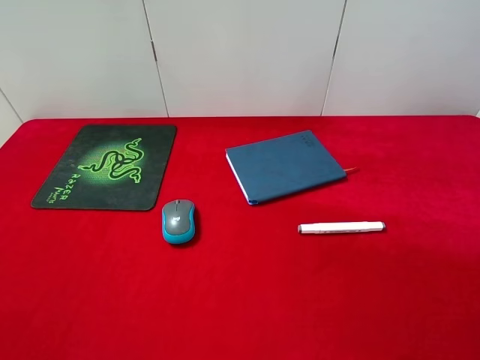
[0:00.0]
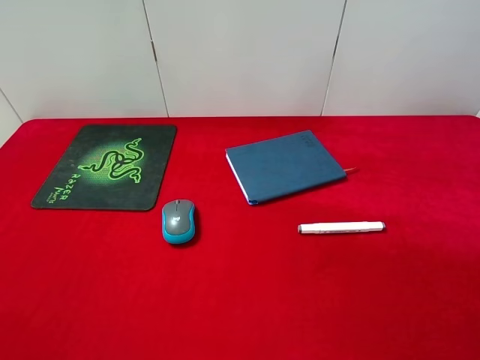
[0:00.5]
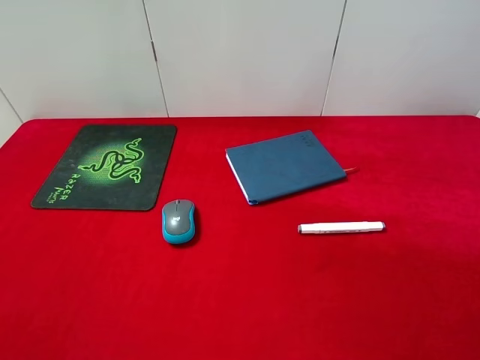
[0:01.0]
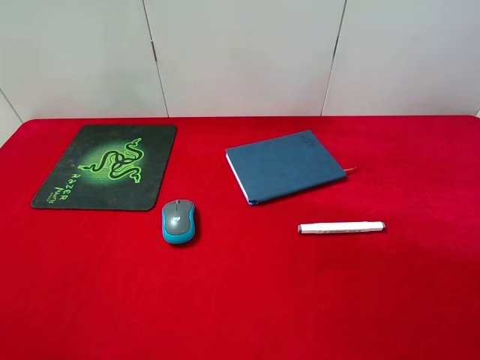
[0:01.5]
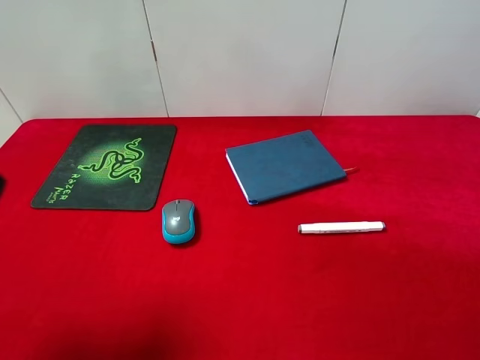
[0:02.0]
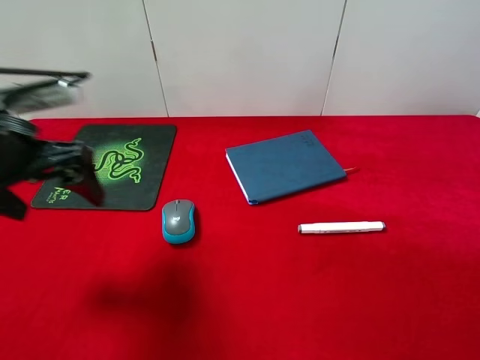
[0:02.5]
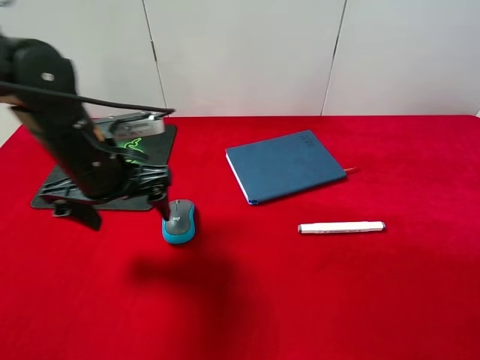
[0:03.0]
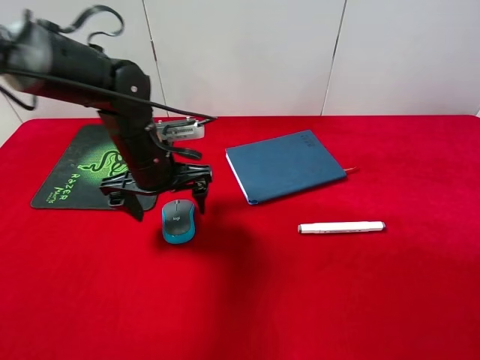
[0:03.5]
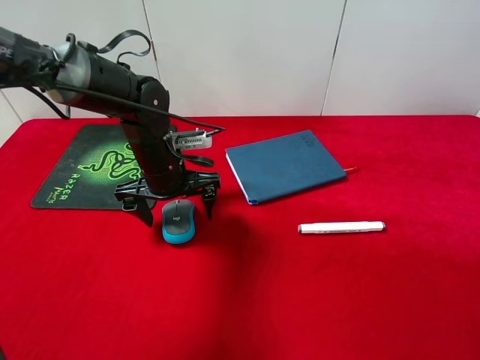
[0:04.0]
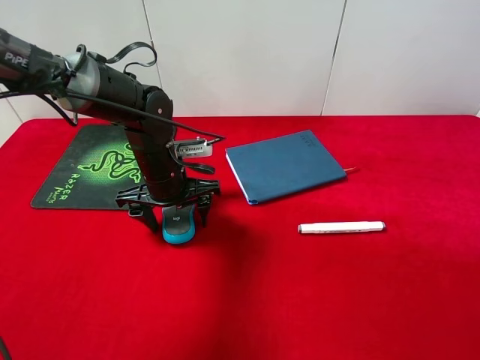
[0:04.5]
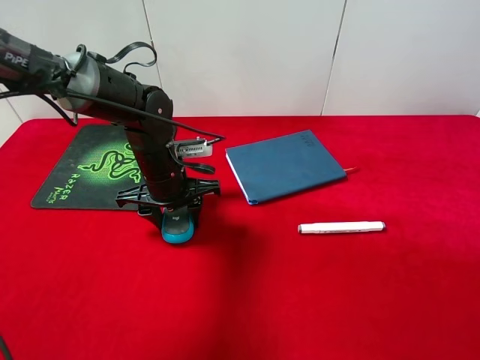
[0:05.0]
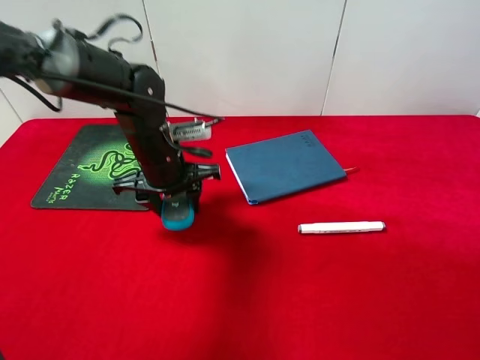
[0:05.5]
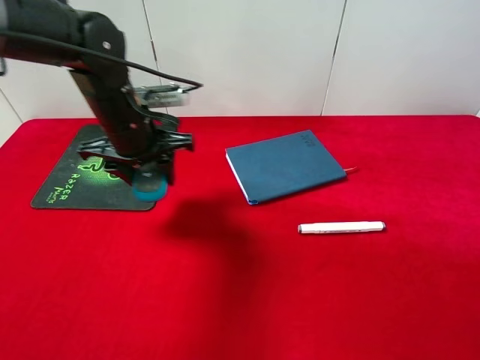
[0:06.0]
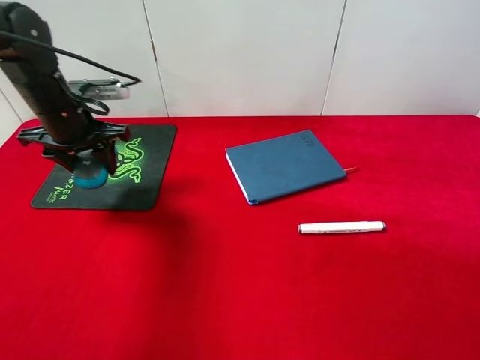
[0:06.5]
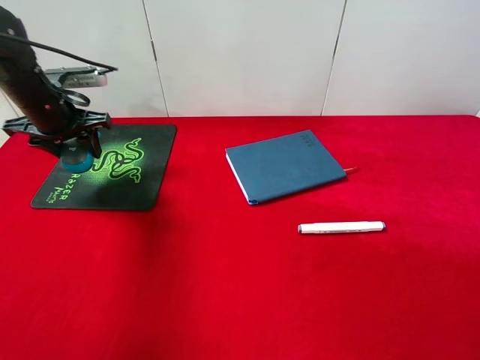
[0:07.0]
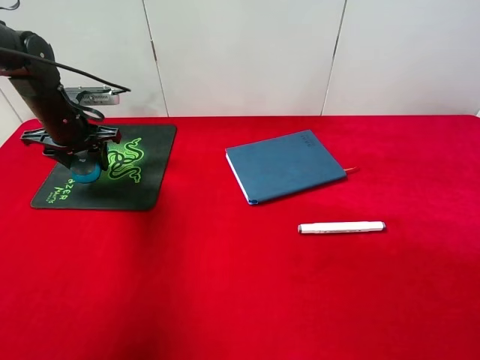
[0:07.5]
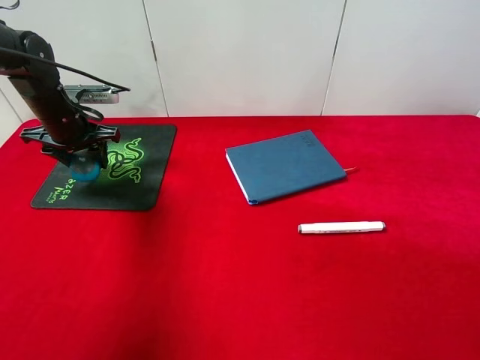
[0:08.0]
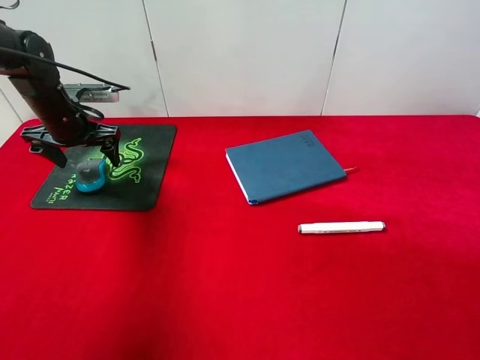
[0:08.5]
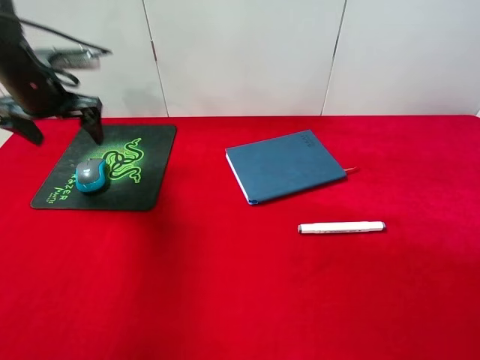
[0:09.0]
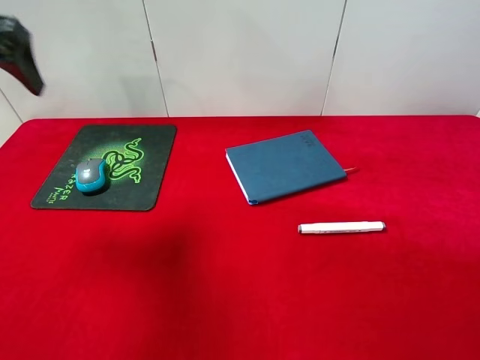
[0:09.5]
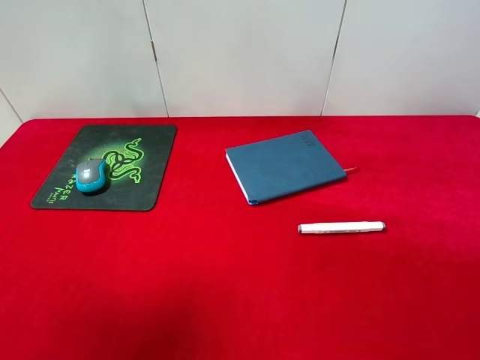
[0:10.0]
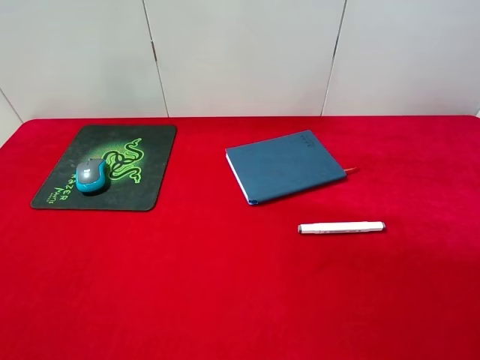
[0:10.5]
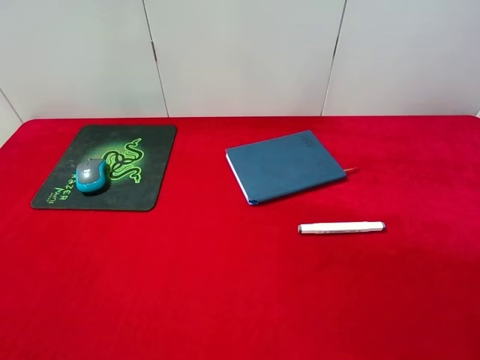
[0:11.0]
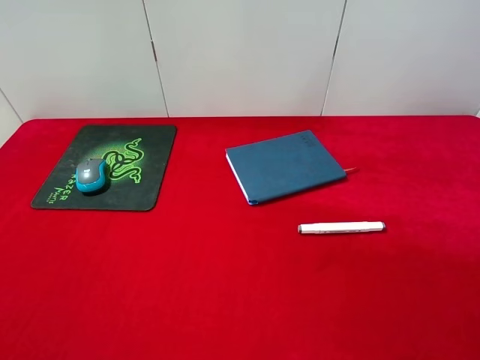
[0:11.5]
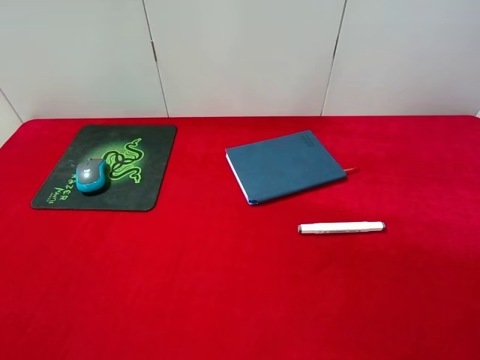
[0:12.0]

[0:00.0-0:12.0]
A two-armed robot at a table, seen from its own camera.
Step, 0:00.0 to 0:05.5: Pick up the mouse with left gripper.
Step, 0:06.0 to 0:08.5: Place the mouse on the mouse pad with left gripper.
0:00.0 to 0:02.0: The left gripper shifts about 15 cm forward.
0:02.0 to 0:04.0: The left gripper travels downward, to the right and forward by some 30 cm.
0:04.0 to 0:06.0: The left gripper goes some 5 cm upward, and closes its fingers.
0:06.0 to 0:08.0: The left gripper goes roughly 15 cm to the left and forward.
0:08.0 to 0:10.0: The left gripper travels backward and upward by roughly 35 cm, and opens its fingers.

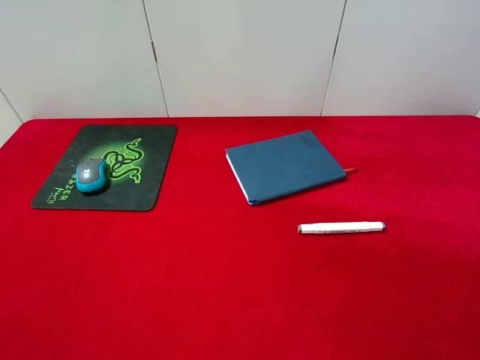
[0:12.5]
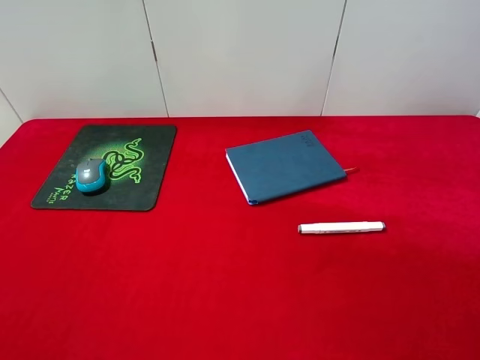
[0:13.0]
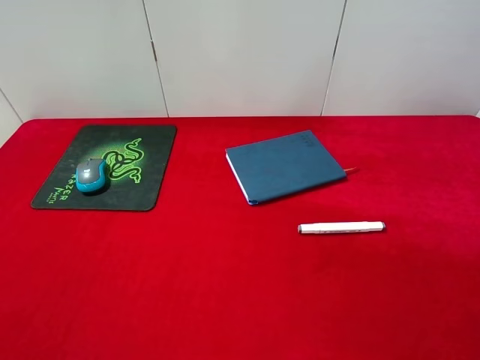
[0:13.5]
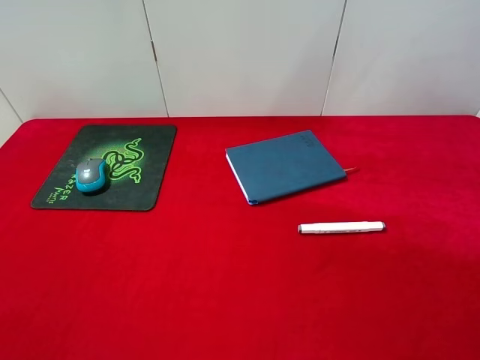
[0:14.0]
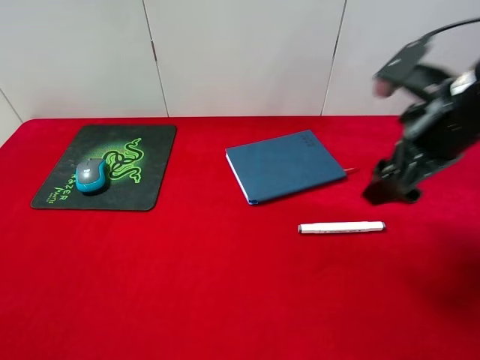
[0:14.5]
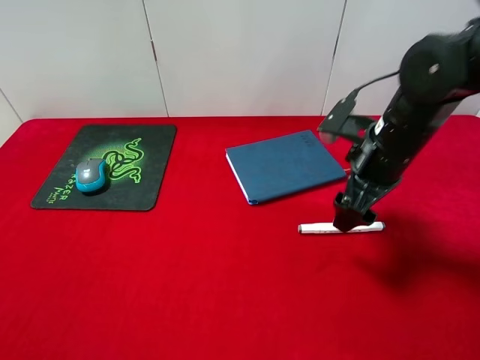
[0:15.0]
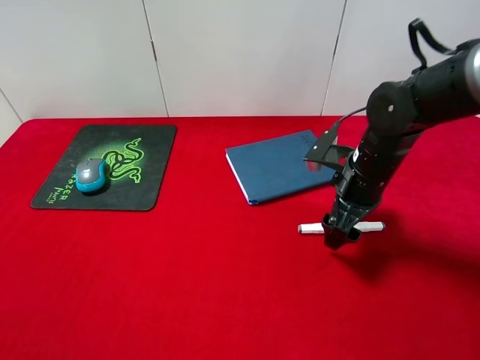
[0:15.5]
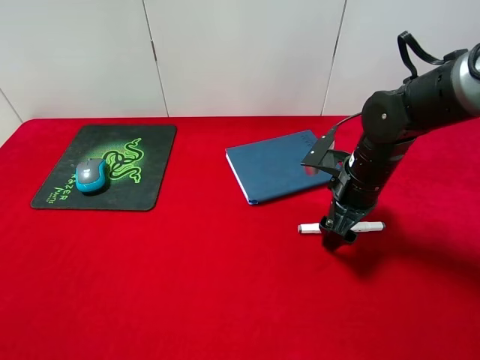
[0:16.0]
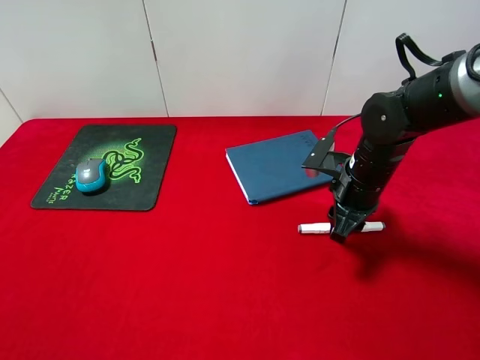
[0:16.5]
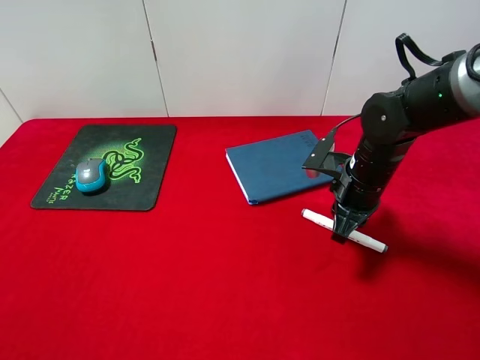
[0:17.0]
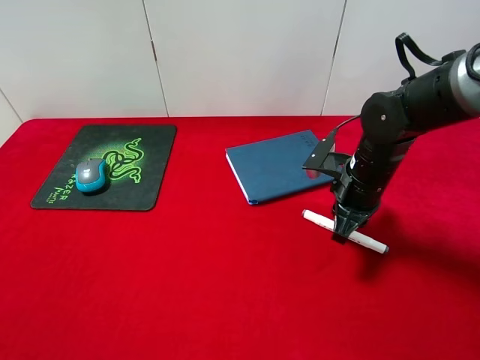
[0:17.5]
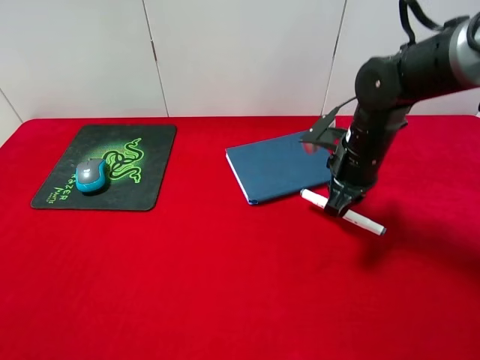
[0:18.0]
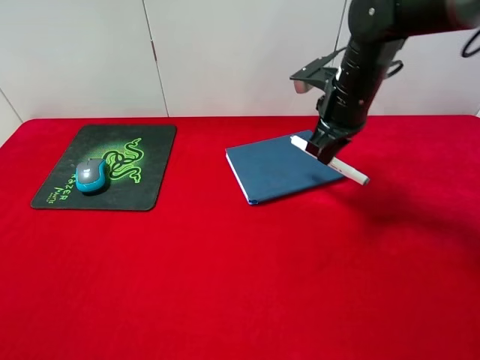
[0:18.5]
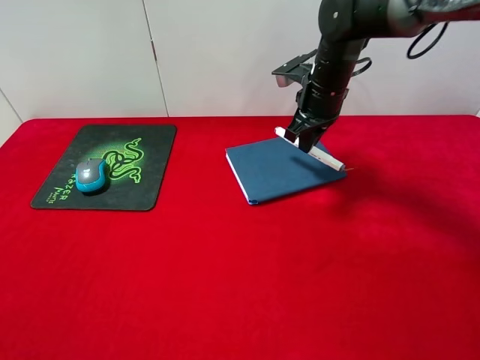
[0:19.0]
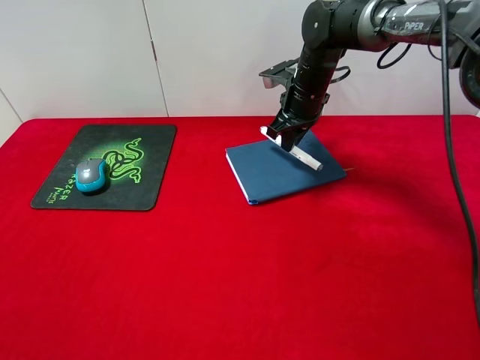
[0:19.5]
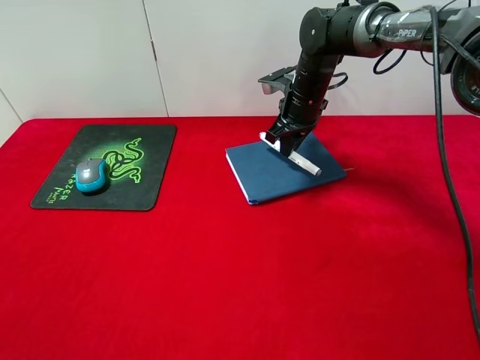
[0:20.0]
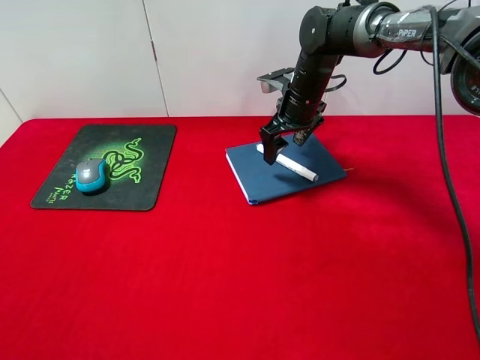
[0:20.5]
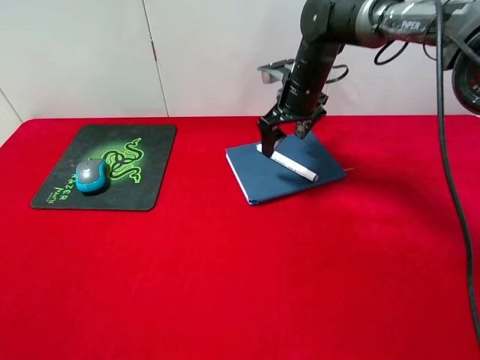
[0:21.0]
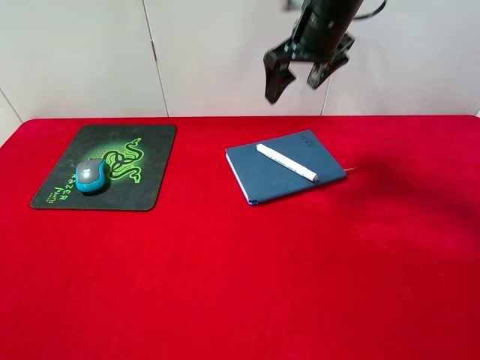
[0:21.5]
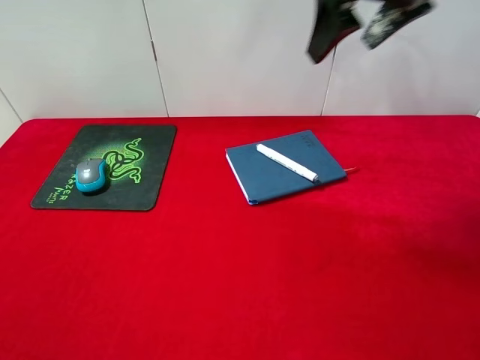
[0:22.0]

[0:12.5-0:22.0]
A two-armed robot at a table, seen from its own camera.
Step, 0:12.5 to 0:18.0: Pick up the marker pen with right gripper.
Step, 0:18.5 to 0:20.5: Place the marker pen on the notebook with right gripper.
0:12.5 to 0:14.5: The right gripper shifts about 25 cm forward and to the left.
0:14.5 to 0:16.5: The right gripper moves downward, some 15 cm, and closes.
0:16.5 to 0:18.0: There are only small adjustments of the grippers.
0:18.0 to 0:20.0: The right gripper travels forward and to the left by about 15 cm.
0:20.0 to 0:22.0: The right gripper is displaced upward and backward by approximately 25 cm, and opens.

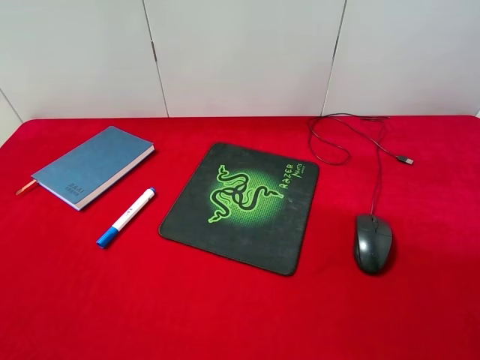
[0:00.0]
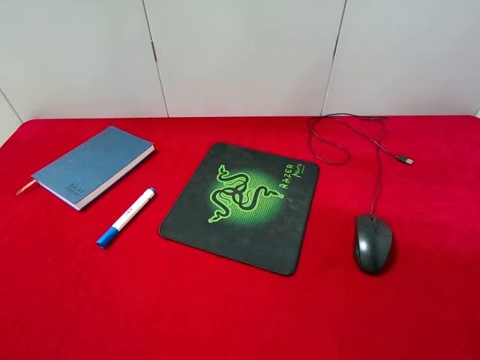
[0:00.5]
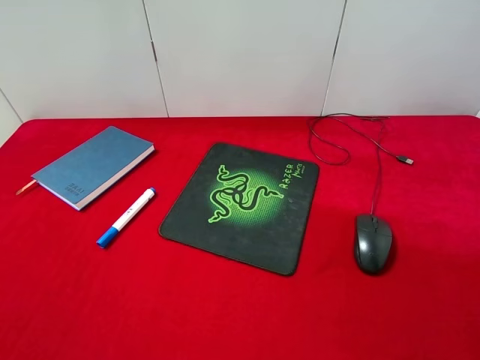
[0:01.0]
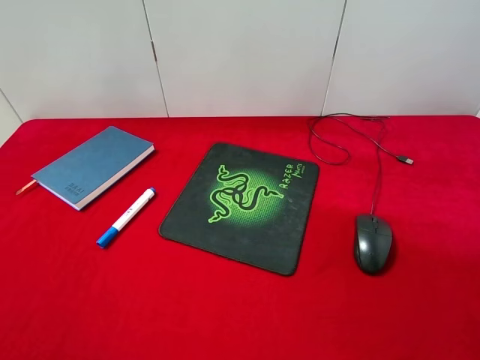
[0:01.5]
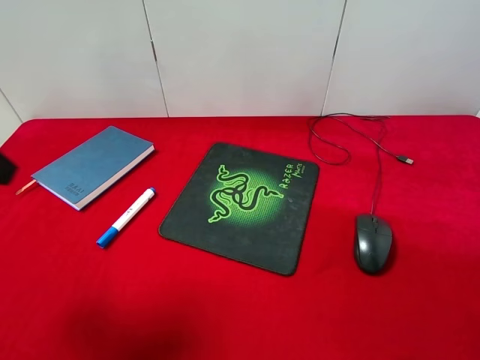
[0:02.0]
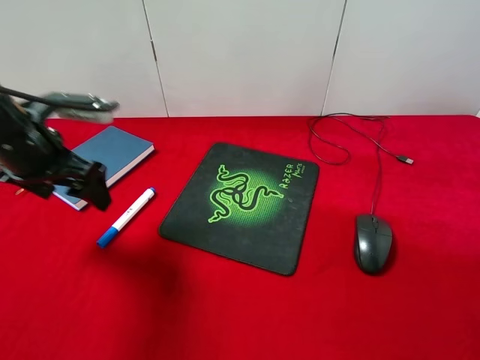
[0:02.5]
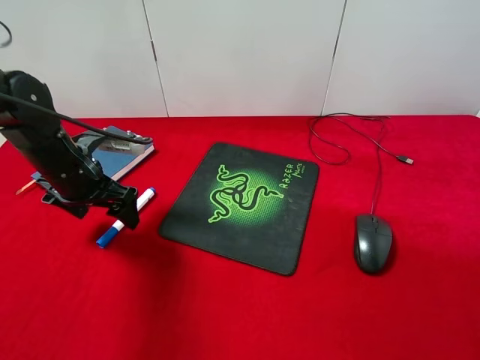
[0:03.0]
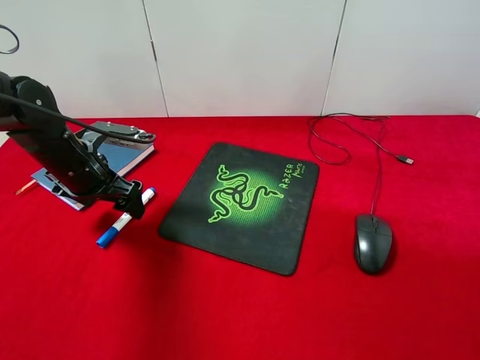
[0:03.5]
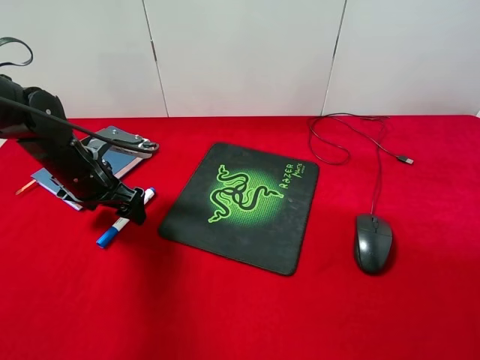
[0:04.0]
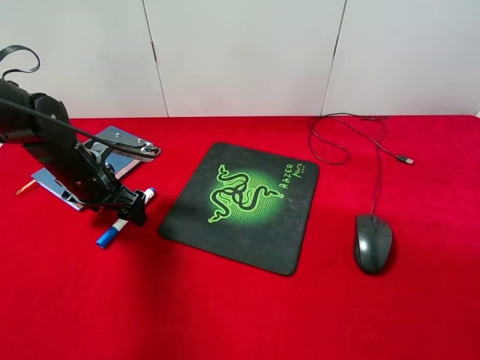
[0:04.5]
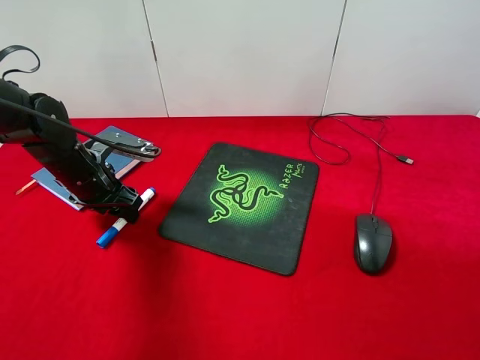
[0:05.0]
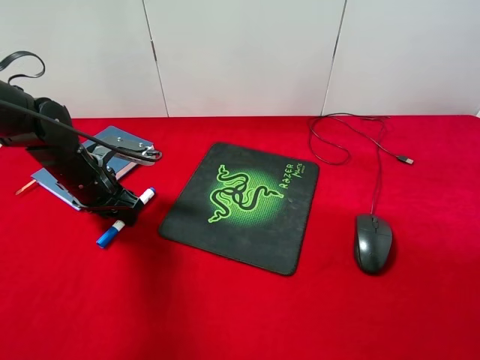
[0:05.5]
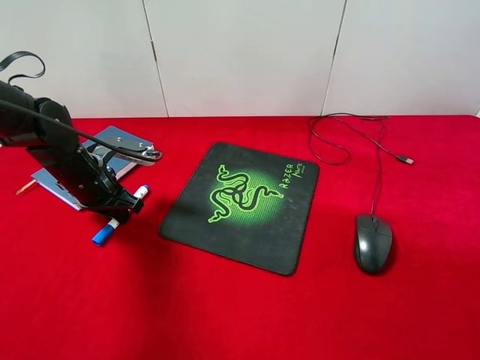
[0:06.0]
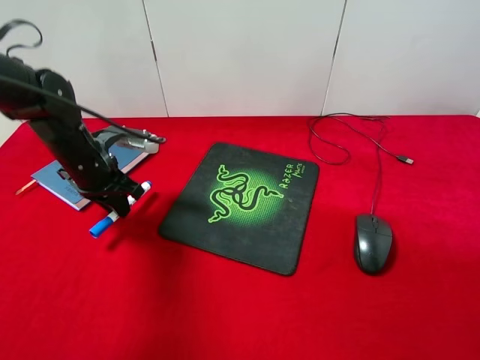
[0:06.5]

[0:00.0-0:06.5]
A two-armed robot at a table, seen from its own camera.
0:00.0 to 0:02.0: The left gripper goes roughly 20 cm forward.
0:02.0 to 0:04.5: The left gripper travels downward and forward by about 25 cm.
0:04.5 to 0:06.5: The left gripper closes.
